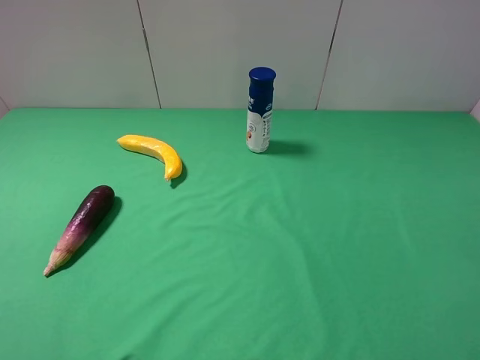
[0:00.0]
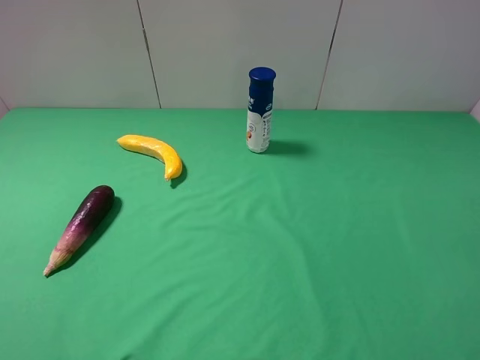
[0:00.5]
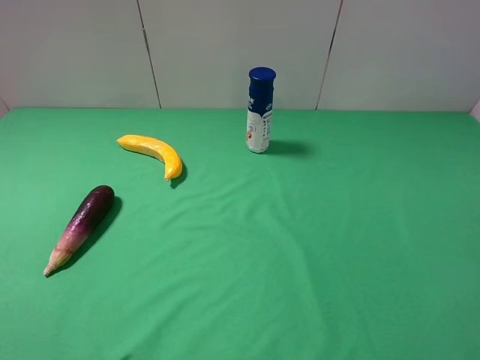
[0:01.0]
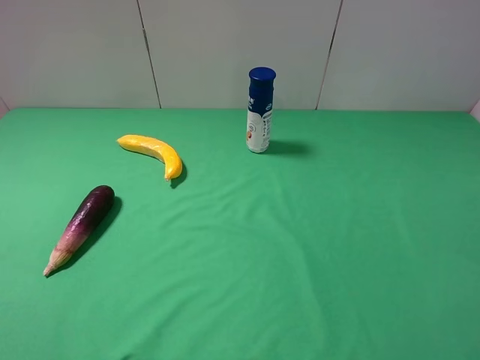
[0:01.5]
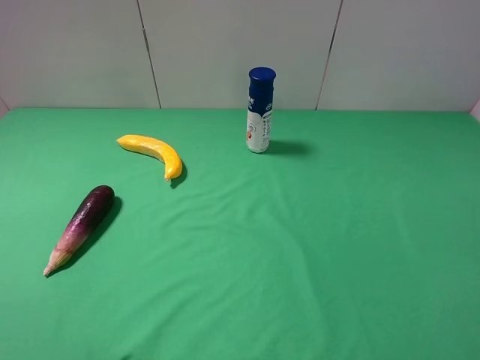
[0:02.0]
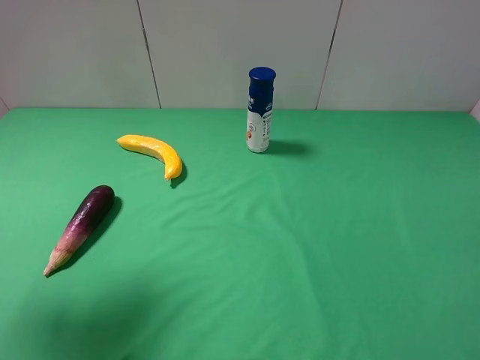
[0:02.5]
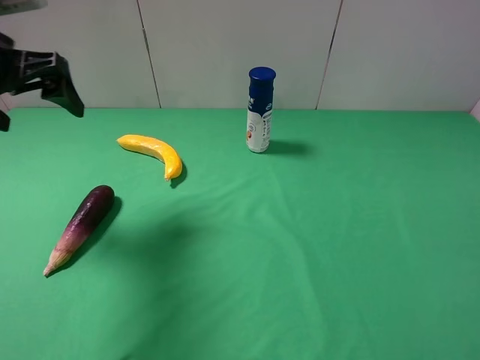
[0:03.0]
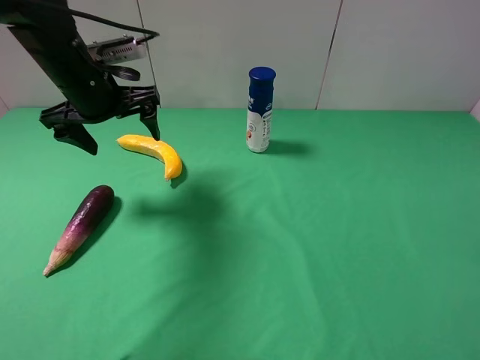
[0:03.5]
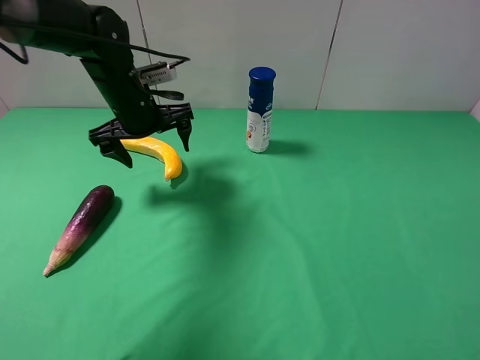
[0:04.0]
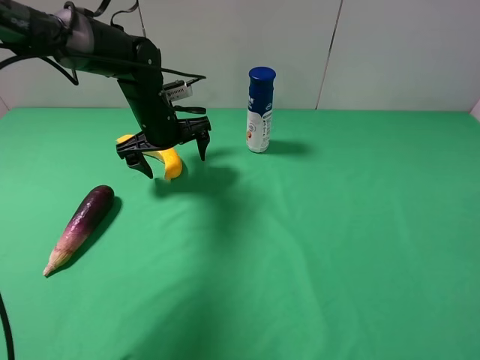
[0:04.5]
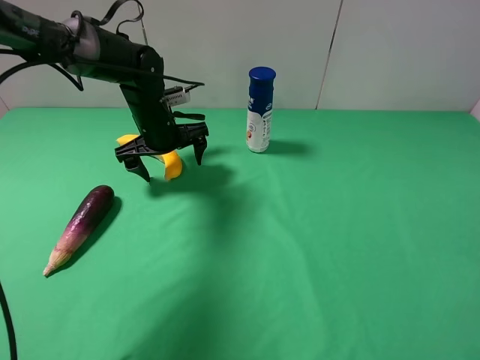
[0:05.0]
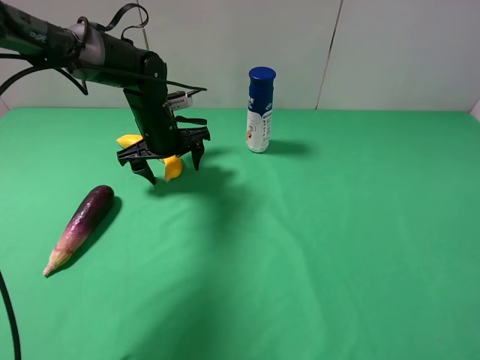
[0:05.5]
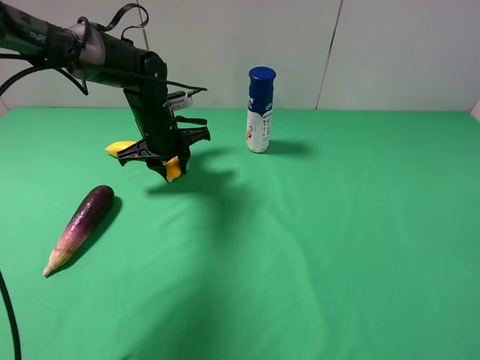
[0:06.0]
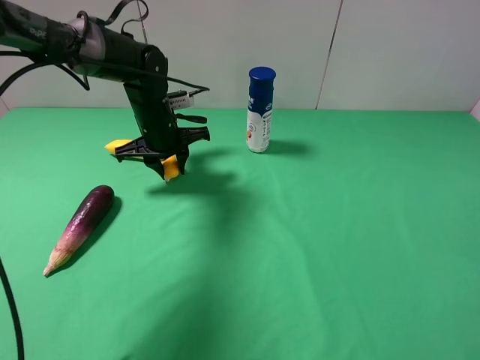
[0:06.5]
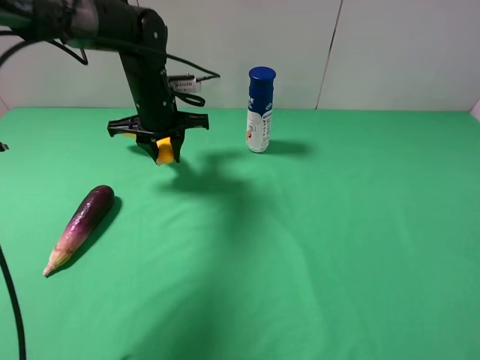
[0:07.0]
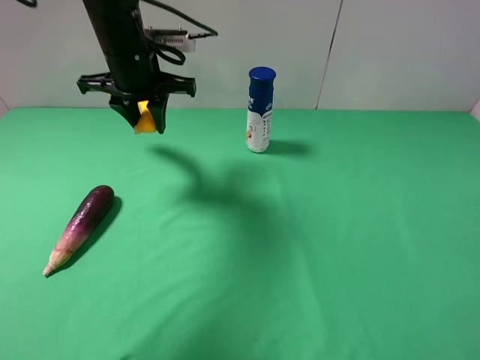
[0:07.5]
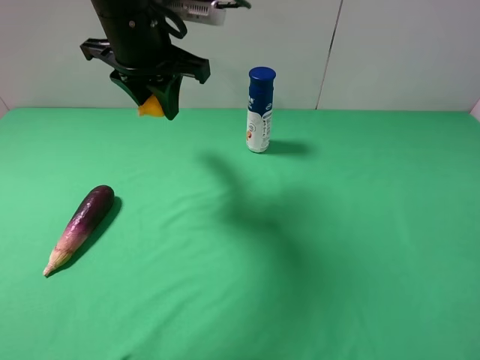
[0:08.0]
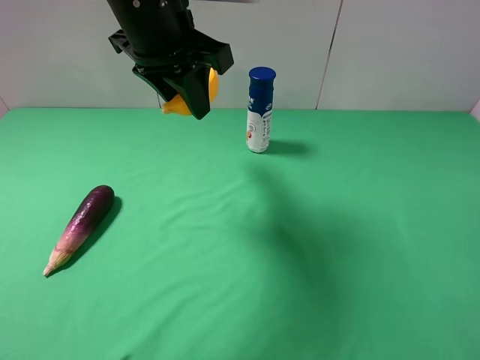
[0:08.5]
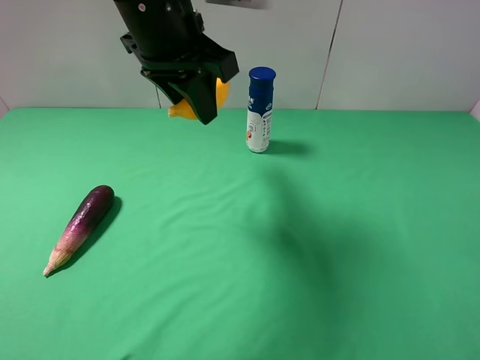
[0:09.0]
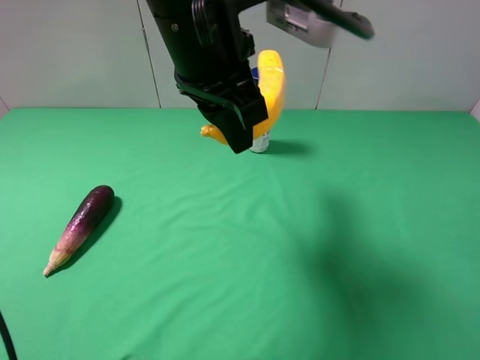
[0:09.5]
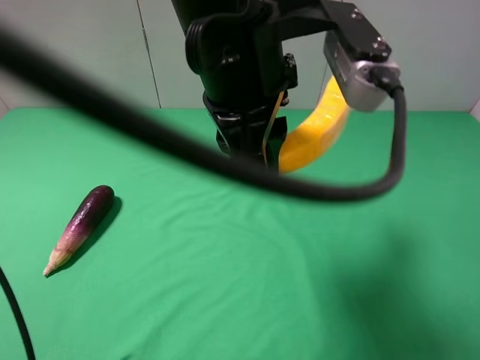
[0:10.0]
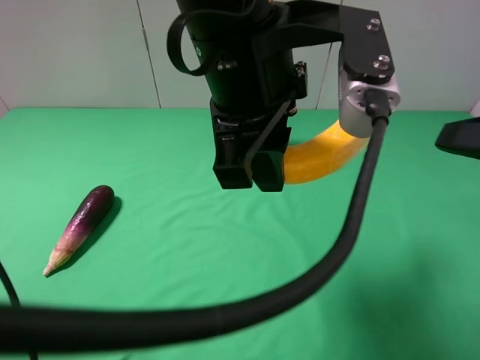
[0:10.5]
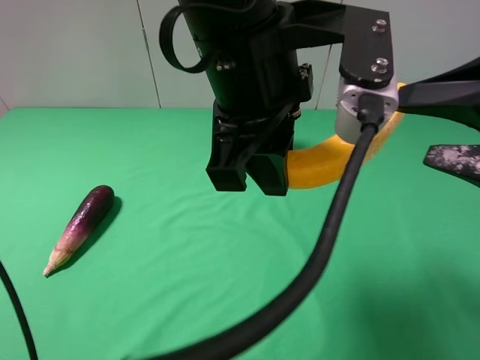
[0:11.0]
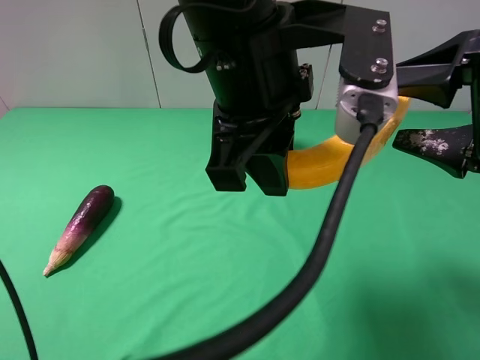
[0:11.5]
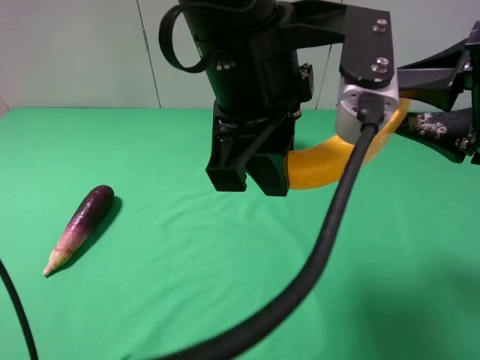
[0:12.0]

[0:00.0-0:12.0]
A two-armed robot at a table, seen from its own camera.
Task of the whole recording: use the left gripper to pick up the item and transfer it from the left gripper to the right gripper.
Step, 0:00.0 to 0:06.0: Use the left gripper to grab the banana on the left side of the table.
0:02.0 to 0:04.0: The left gripper travels forward, to the right and downward by roughly 40 cm.
0:04.0 to 0:06.0: The left gripper travels downward by approximately 5 cm, and closes its fingers.
0:06.0 to 0:08.0: The left gripper shifts about 20 cm upward.
0:08.0 to 0:10.0: The left gripper shifts about 15 cm backward and to the right.
0:10.0 to 0:12.0: The right gripper shifts roughly 15 cm forward, and closes.

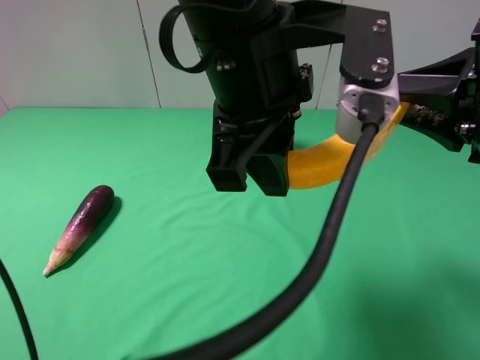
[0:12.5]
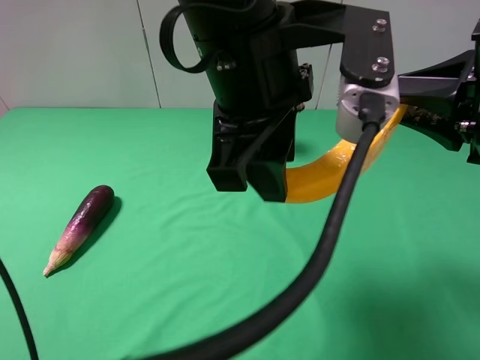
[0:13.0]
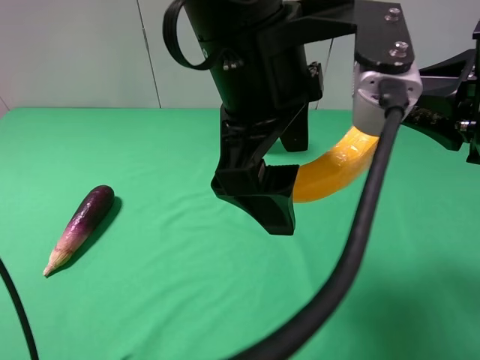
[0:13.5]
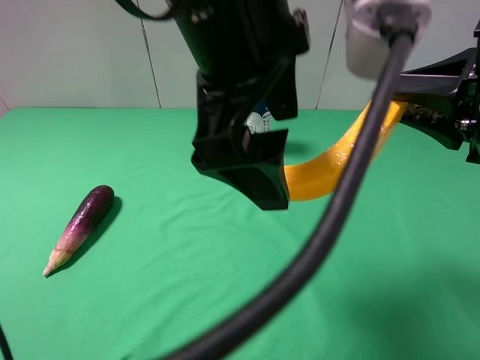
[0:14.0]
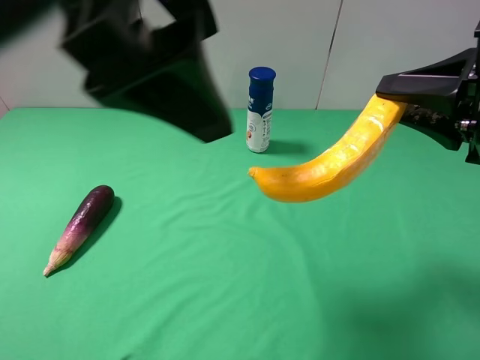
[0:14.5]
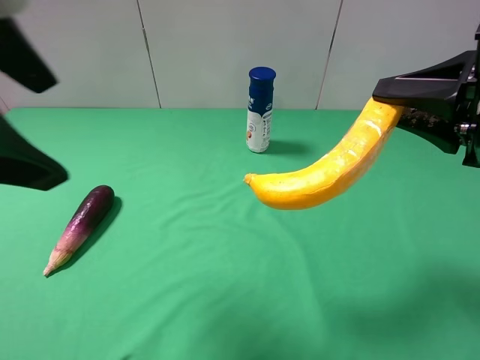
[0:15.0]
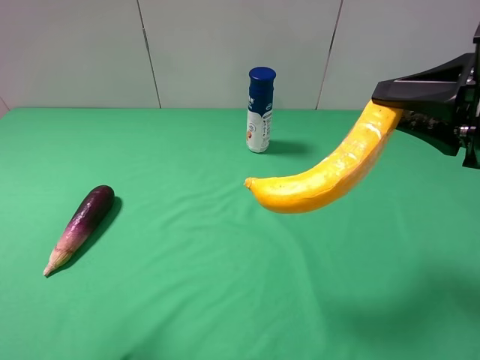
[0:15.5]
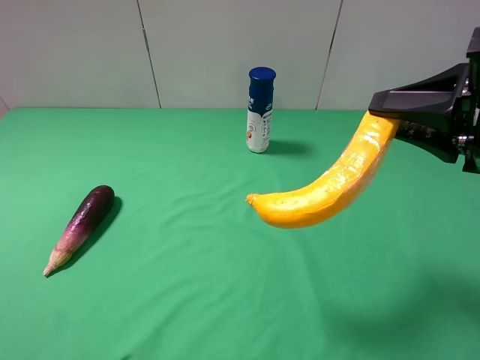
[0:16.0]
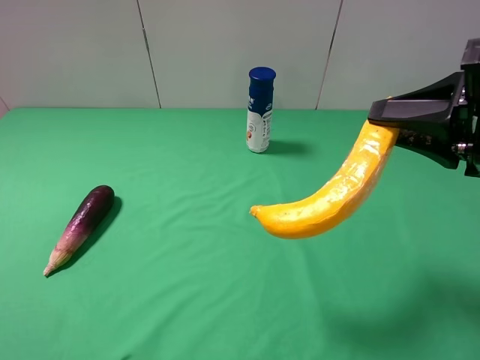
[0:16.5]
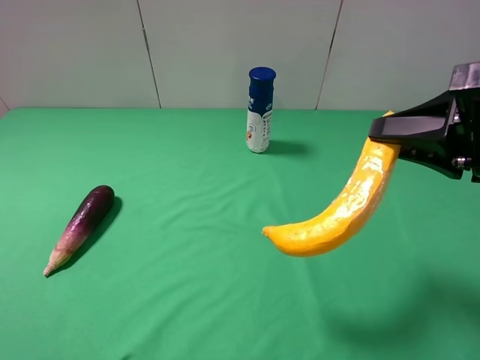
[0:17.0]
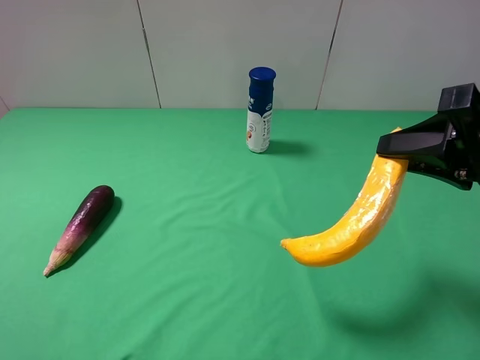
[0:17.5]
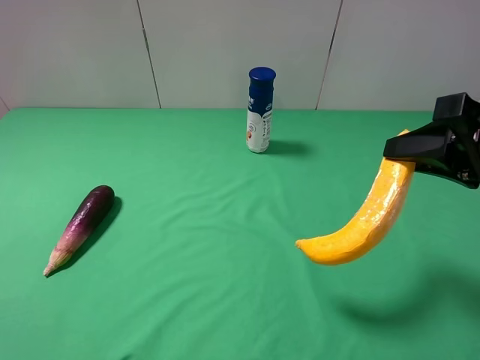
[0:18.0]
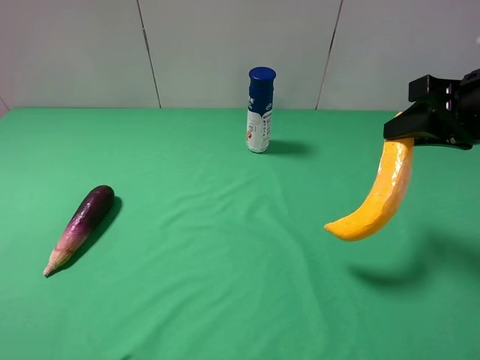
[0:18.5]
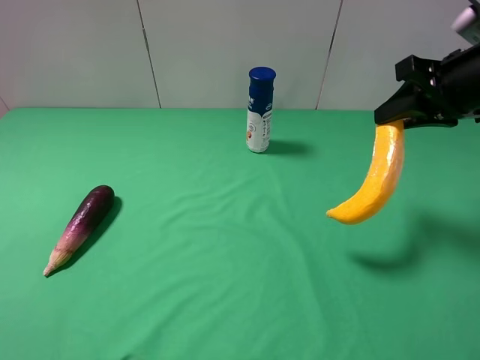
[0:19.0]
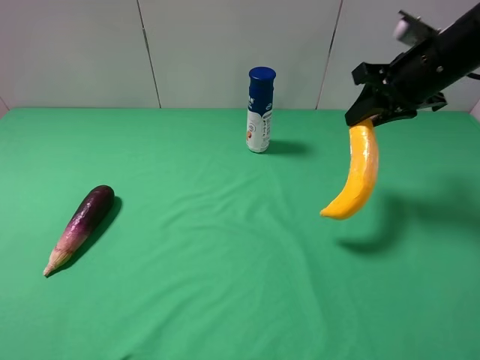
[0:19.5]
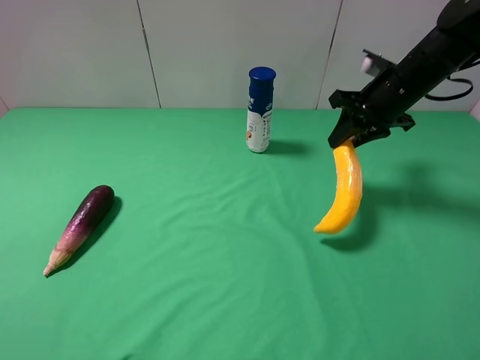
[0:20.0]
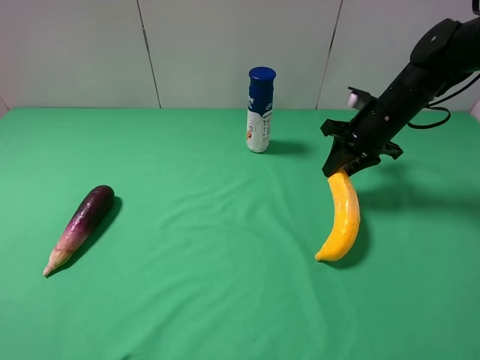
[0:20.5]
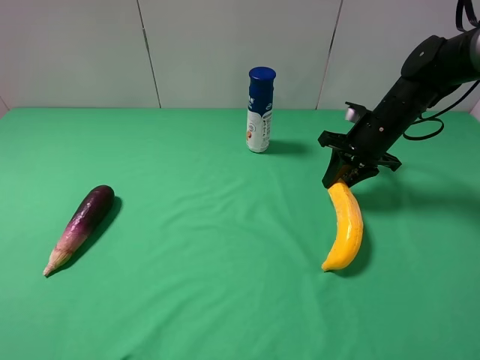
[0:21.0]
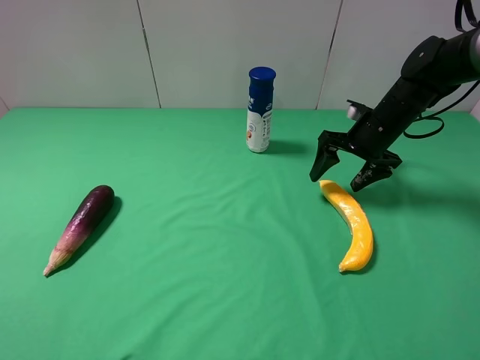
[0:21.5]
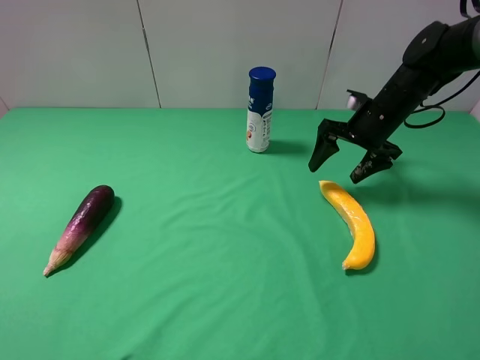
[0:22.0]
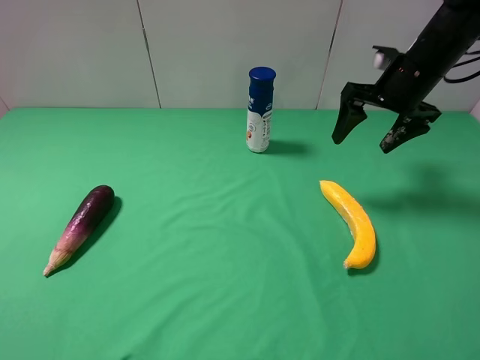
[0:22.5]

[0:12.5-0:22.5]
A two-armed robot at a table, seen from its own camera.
Task of the whole recording: use the left gripper to pick up the item and transfer it from the left gripper to the right gripper.
Step, 0:14.0 to 0:22.0: The right gripper places banana on the right side of the table.
0:12.5 to 0:14.5: The left gripper travels upward and to the left by roughly 15 cm, and opens its fingers.
0:14.5 to 0:16.5: The left gripper moves to the left, backward and downward, roughly 35 cm.
0:16.5 to 0:18.5: The right gripper goes some 5 cm forward.
0:18.5 to 0:20.5: The right gripper shifts approximately 20 cm forward and downward.
0:20.5 to 0:22.5: The right gripper goes roughly 10 cm upward, and opens up.

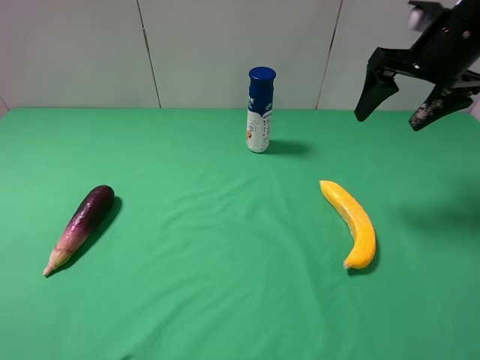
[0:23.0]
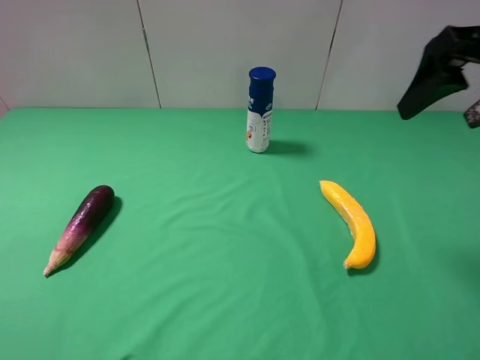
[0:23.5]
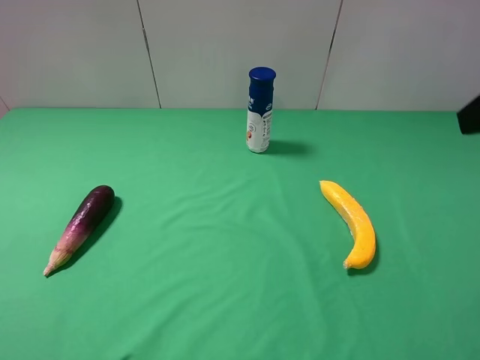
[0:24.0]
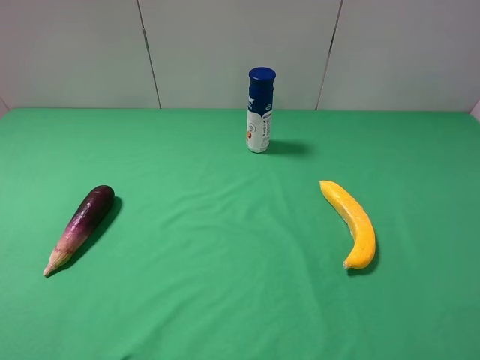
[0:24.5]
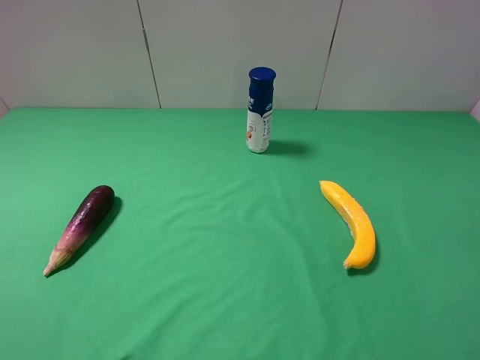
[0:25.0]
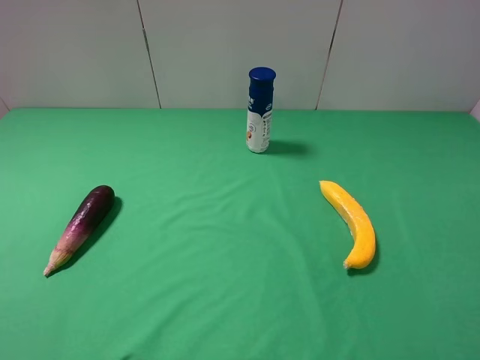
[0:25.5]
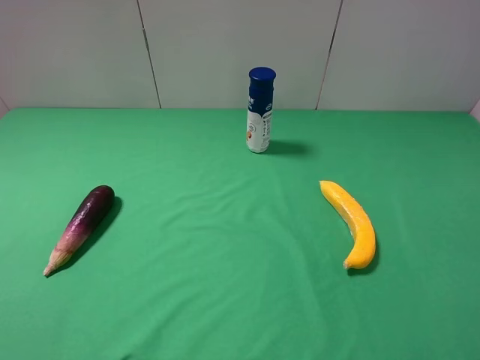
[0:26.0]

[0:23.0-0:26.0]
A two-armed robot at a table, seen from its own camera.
Task of the whole recording: use the left gripper to pick up the item and transfer it from the left gripper to the right gripper.
0:23.0 to 0:24.5: The right gripper goes roughly 30 cm backward.
